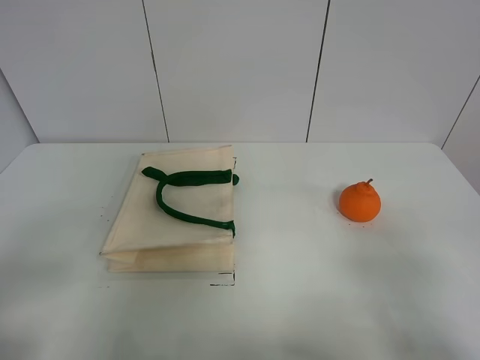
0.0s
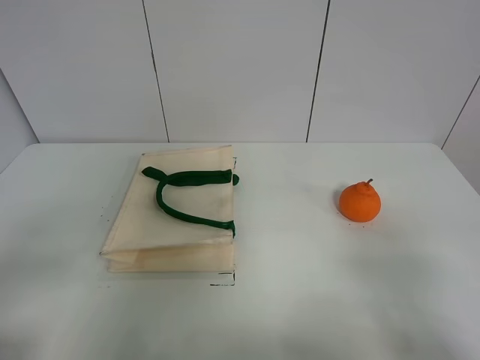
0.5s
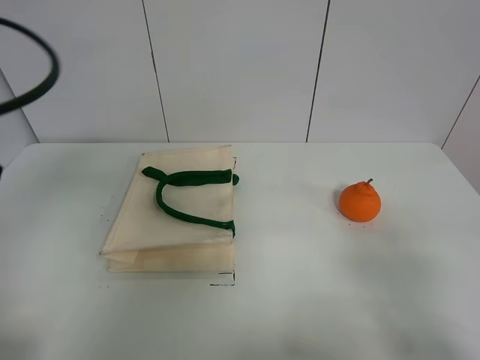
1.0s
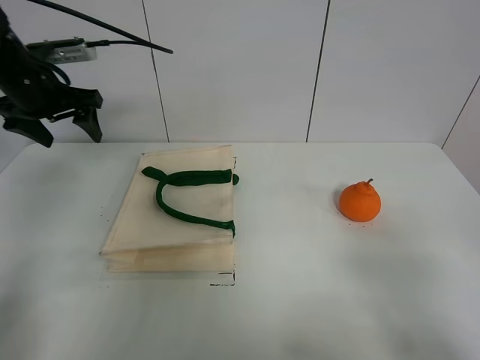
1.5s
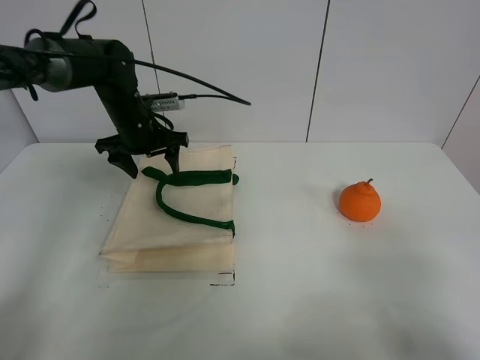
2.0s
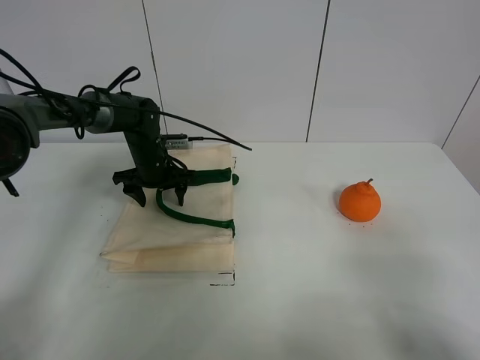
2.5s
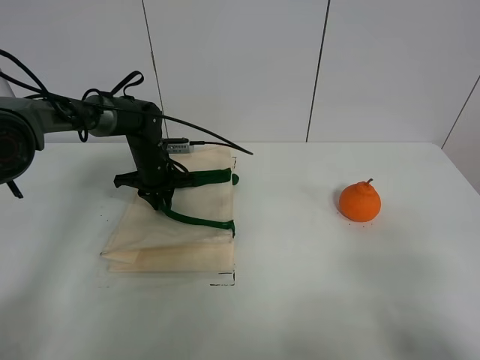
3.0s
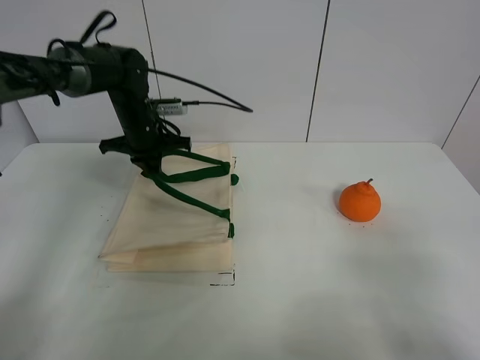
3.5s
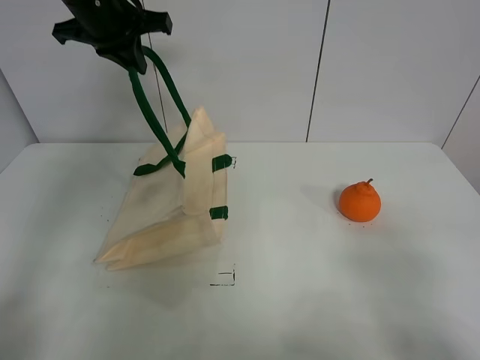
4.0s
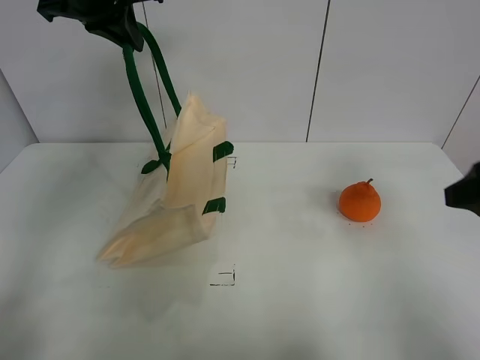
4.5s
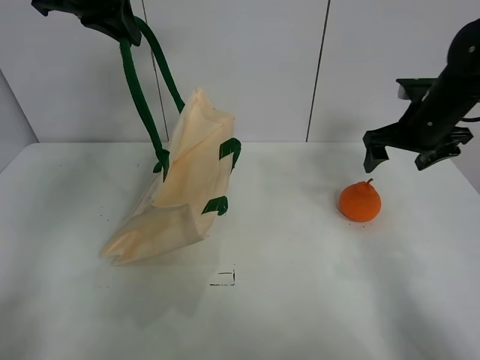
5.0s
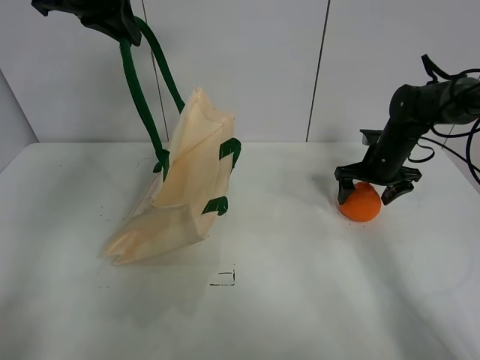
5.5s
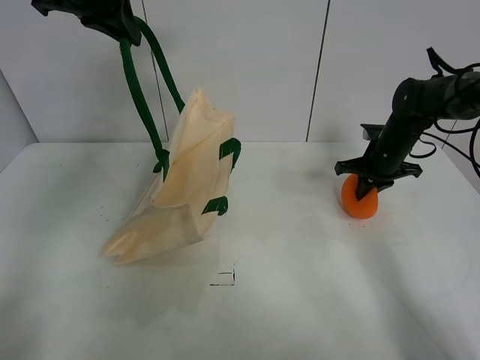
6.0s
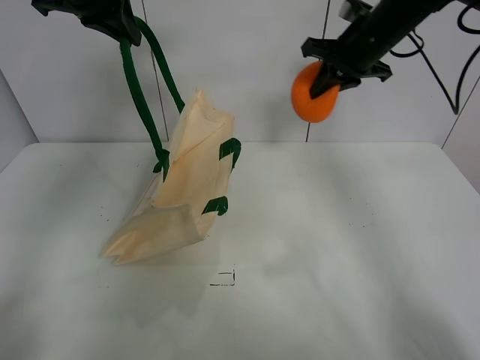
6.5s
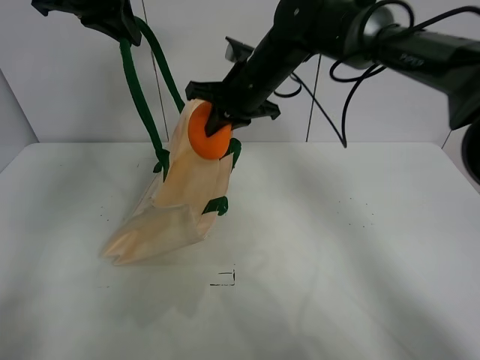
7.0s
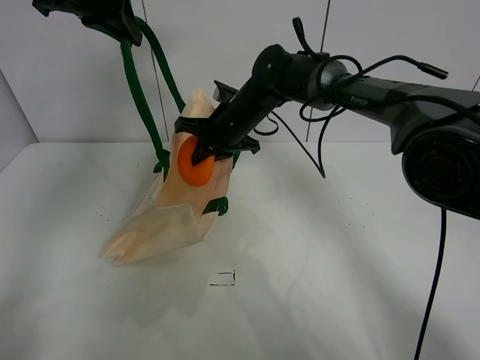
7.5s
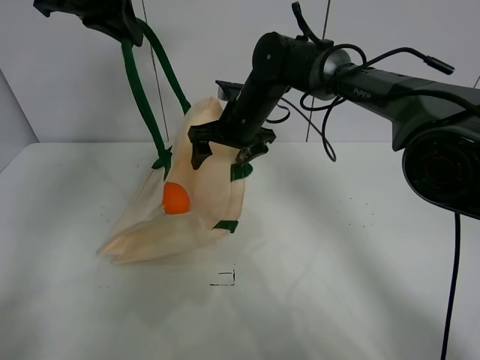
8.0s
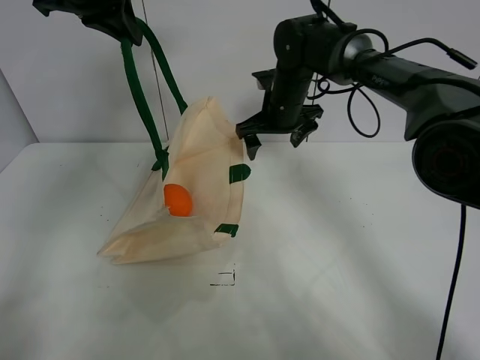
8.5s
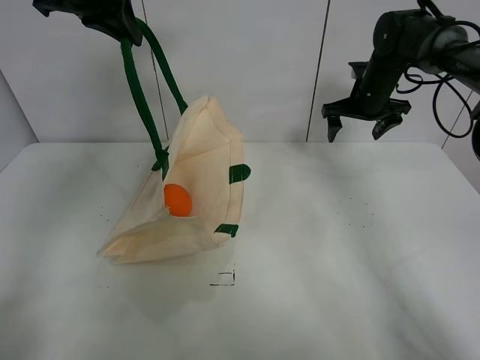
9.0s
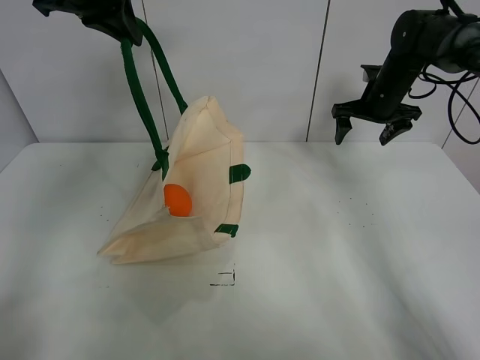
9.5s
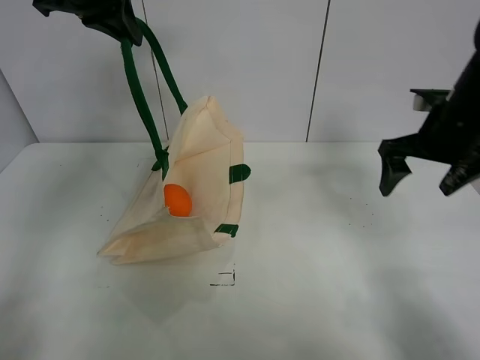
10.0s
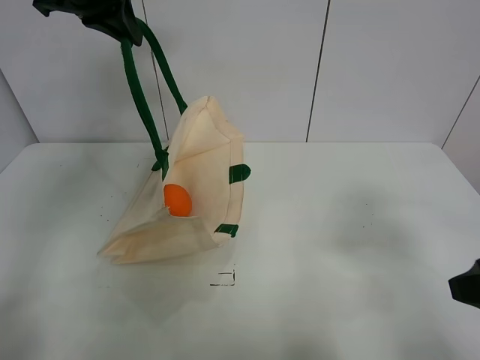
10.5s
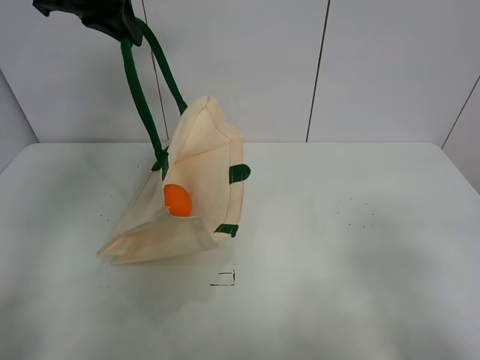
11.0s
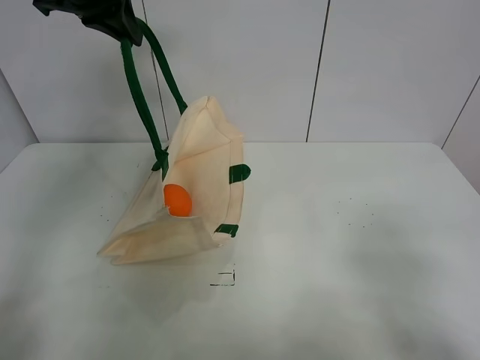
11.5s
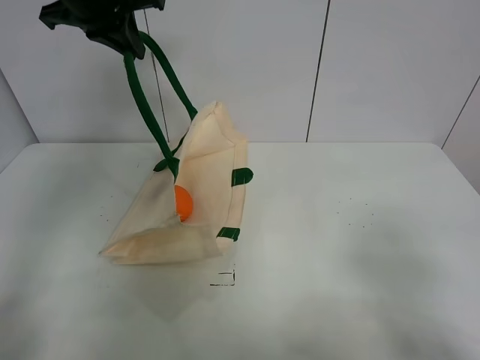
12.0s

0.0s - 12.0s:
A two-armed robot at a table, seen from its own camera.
Task of the whole recording: open the white linen bag and put the orange in the bag.
Step, 0.0s - 4.0s: Lift the handbag with left gripper.
Step, 4.5s - 5.5s: Grasp the orange with right gripper.
Step, 6.0s - 8.0s: Place the orange in the handbag with right gripper.
0.0s - 2.0s: The left gripper shifts some 40 cm forward.
2.0s - 4.0s: The left gripper goes some 20 cm upward, and closes its fingers.
4.0s - 6.0s: The left gripper moves approximately 5 cm. The right gripper goes some 40 cm forward, and closes its fingers.
6.0s - 8.0s: The right gripper travels to the left by roughly 25 cm, and opens.
8.0s - 10.0s: The right gripper shifts approximately 30 cm to the right and backward.
10.0s - 12.0s: The right gripper heads backward, covering approximately 30 cm.

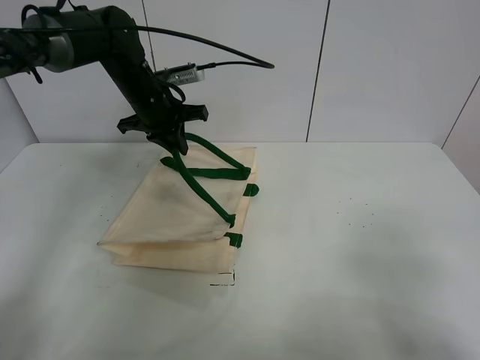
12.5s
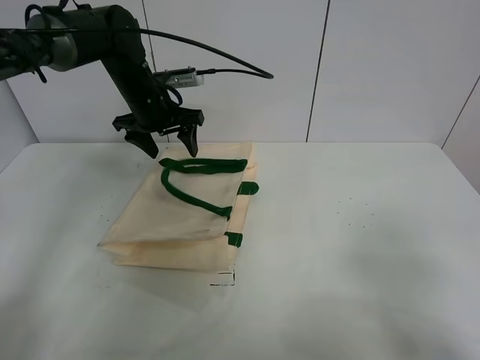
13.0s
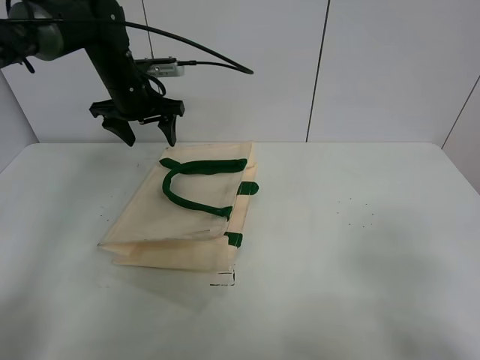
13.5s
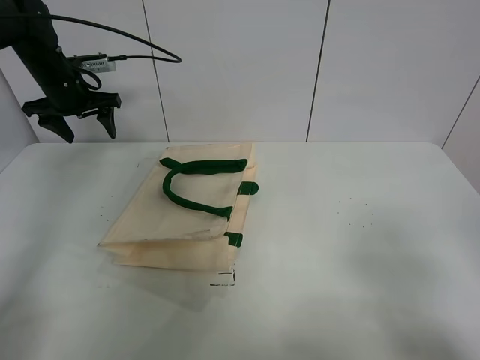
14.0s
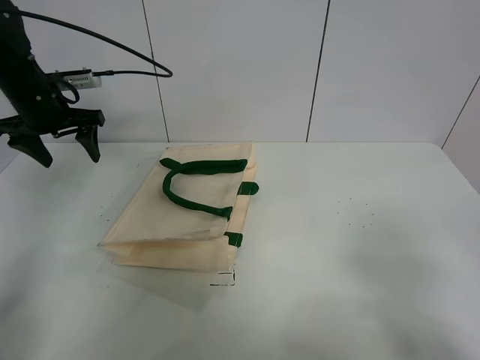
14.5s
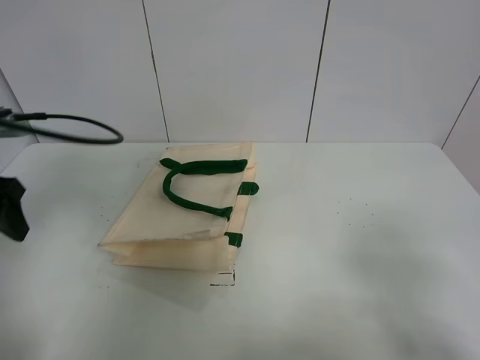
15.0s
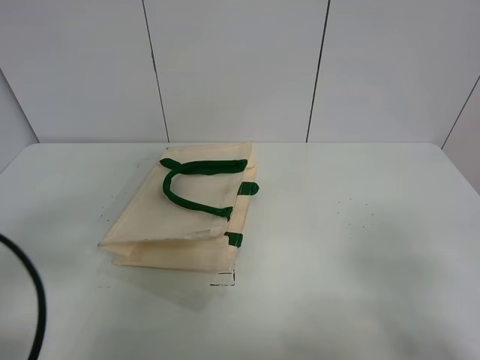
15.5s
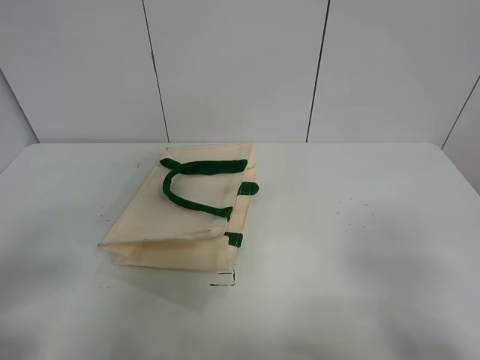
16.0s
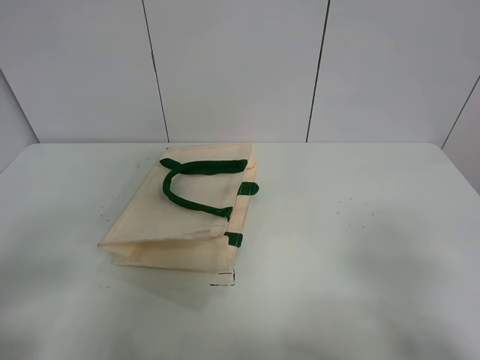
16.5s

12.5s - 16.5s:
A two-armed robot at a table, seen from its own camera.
Task of the whole recording: open the white linen bag and put the orange in the bag.
12.5s - 14.5s: The left gripper travels to the left by approximately 15 cm, and opens its fingers.
14.5s - 16.5s: The left gripper shifts some 40 cm backward.

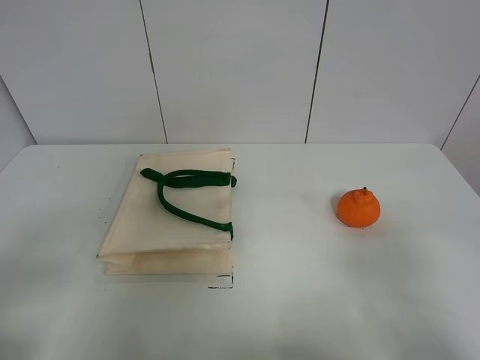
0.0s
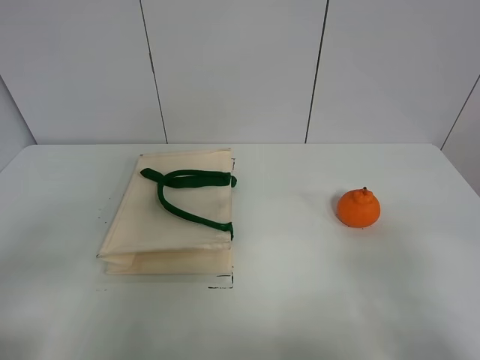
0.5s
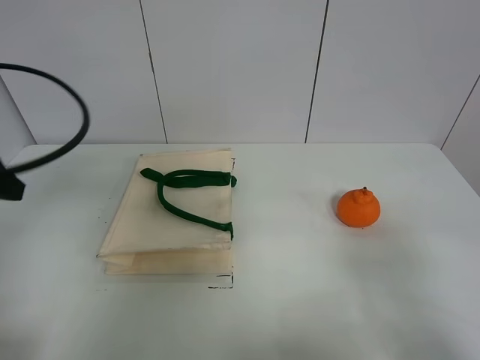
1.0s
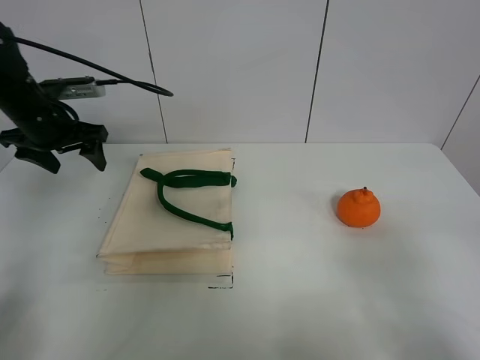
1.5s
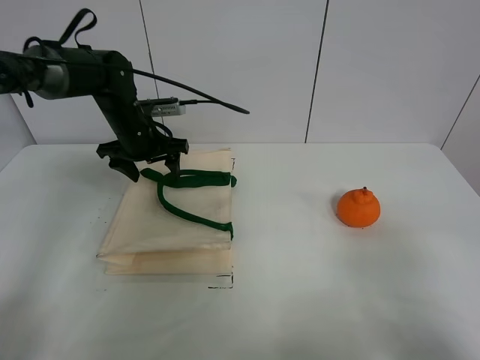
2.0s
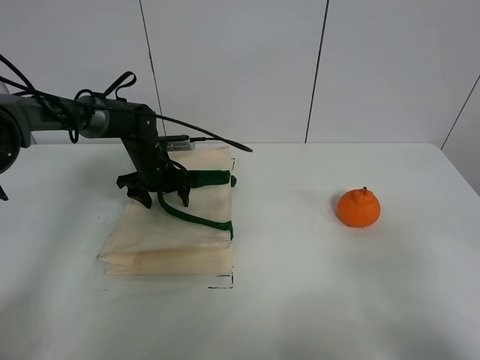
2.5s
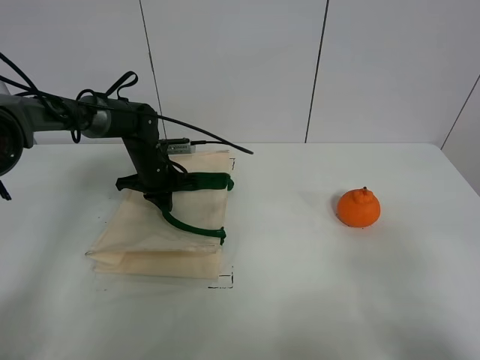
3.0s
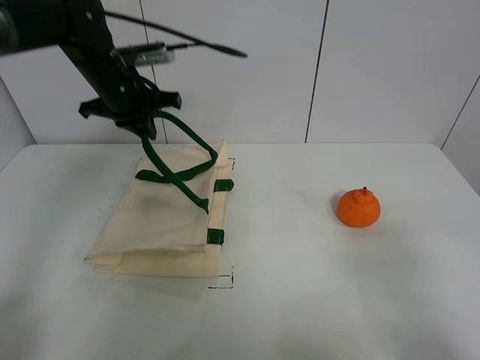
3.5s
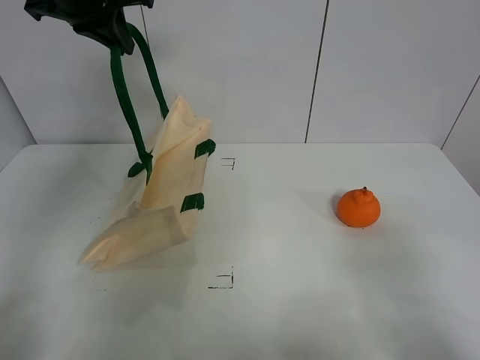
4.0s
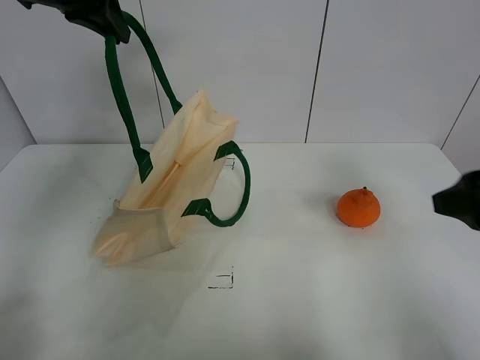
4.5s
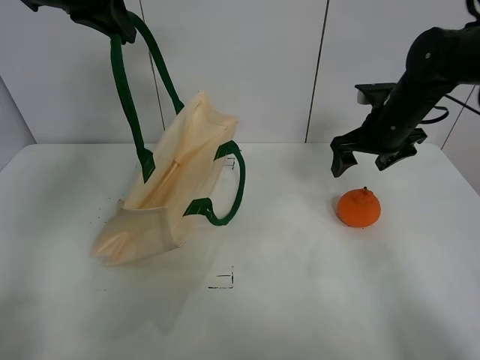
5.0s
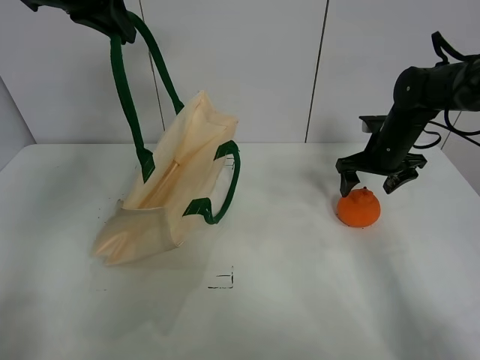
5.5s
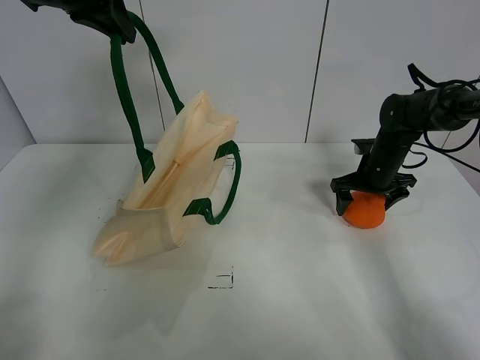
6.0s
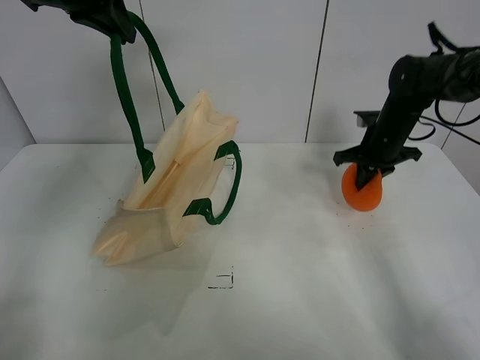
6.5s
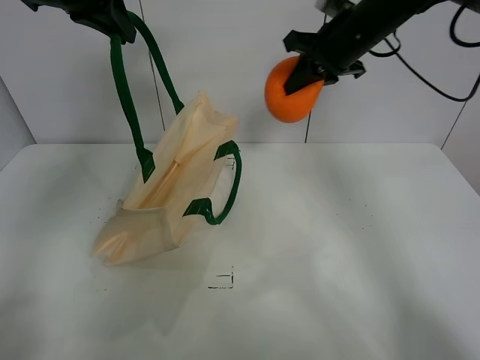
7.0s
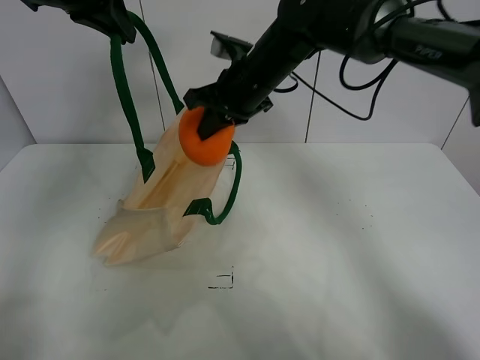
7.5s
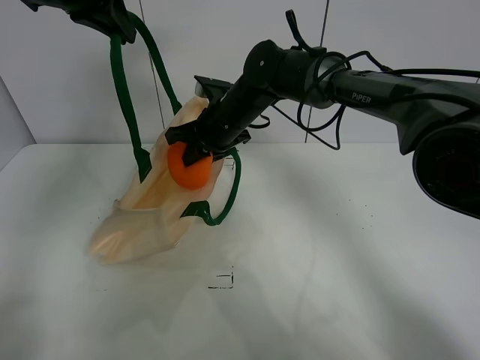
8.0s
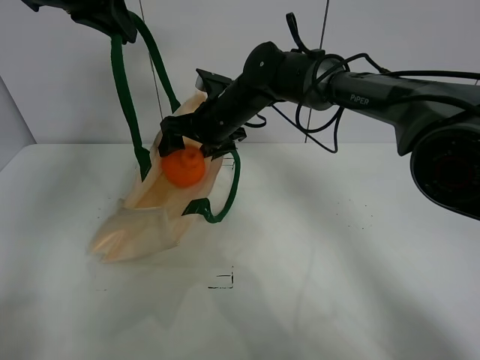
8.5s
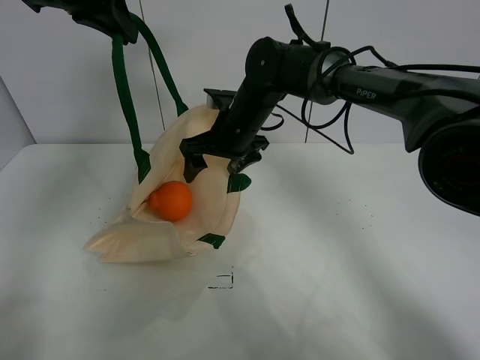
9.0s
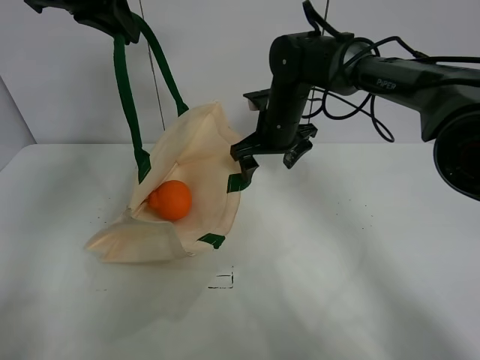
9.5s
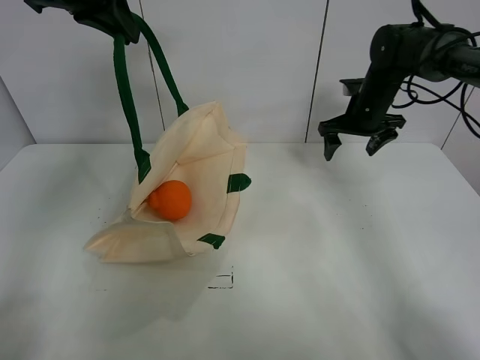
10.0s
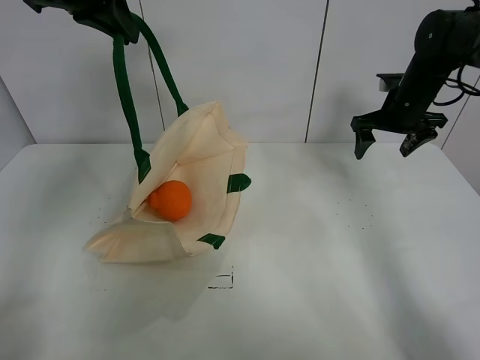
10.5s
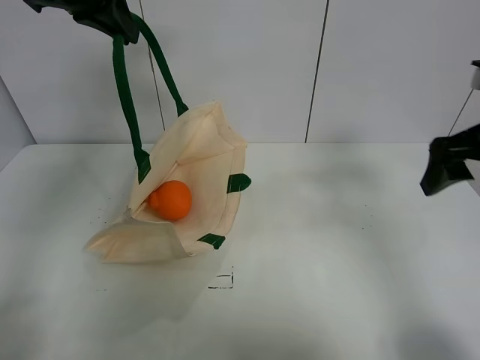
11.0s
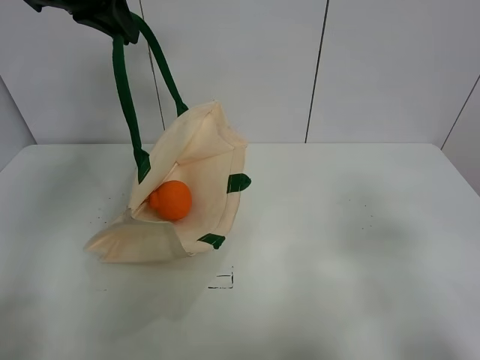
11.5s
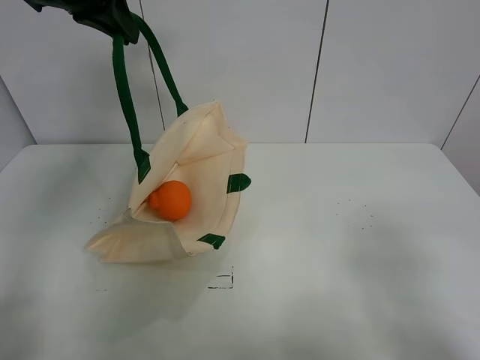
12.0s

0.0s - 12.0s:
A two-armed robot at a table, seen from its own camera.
Task of the whole recording: open the white linen bag and put the orange in the bag.
Step, 0.0s - 4.0s: Lift the handbag with left gripper.
Step, 4.5s - 6.0s: Grasp the orange with right gripper.
Step, 6.5s - 9.0s: Place the orange in the handbag with right gripper.
0.0s - 2.0s: The left gripper moves forward, approximately 40 cm.
2.0s - 4.0s: The left gripper heads upward, covering roughly 25 cm, and closes its fingers.
4.0s - 6.0s: The right gripper is displaced forward by about 40 cm.
6.0s - 8.0s: The right gripper is displaced to the left by approximately 25 cm, and closes its fingers.
8.0s - 10.0s: The right gripper is displaced to the right by approximately 25 cm, and opens up.
10.0s - 12.0s: The right gripper heads backward, covering roughly 50 cm.
